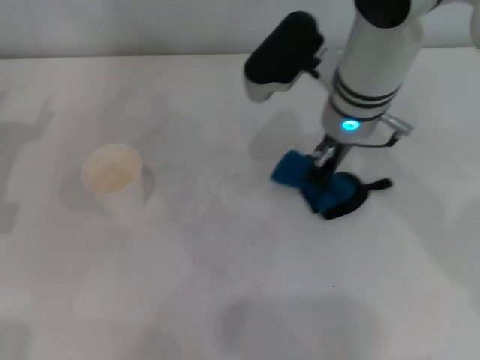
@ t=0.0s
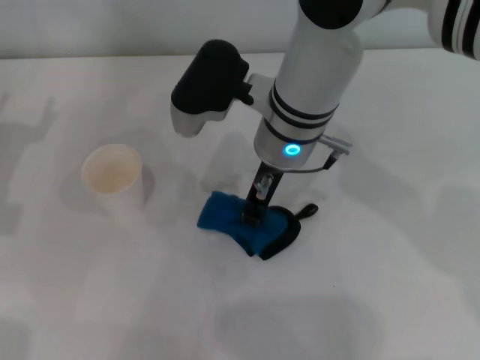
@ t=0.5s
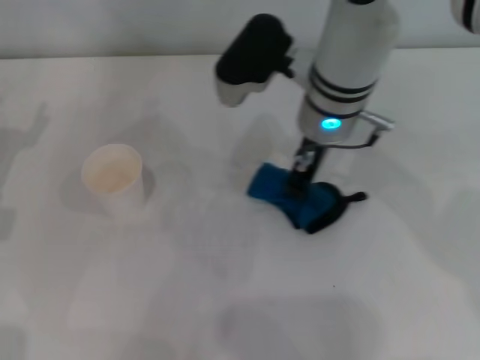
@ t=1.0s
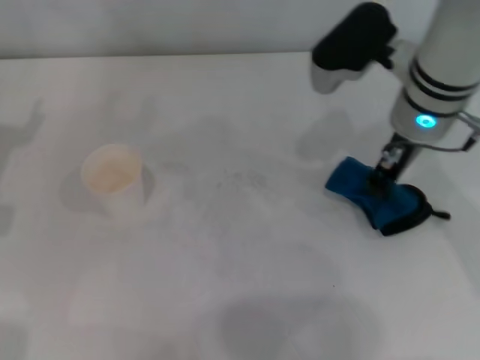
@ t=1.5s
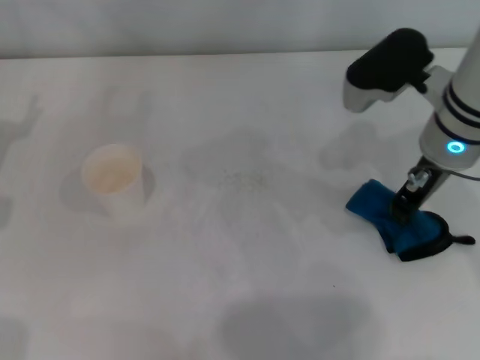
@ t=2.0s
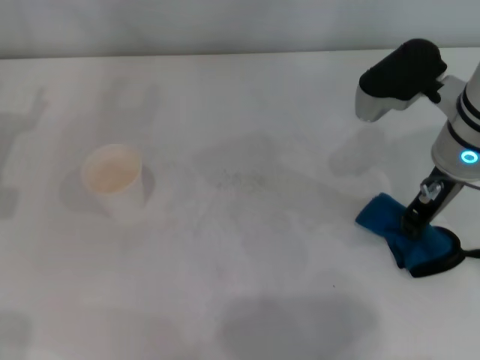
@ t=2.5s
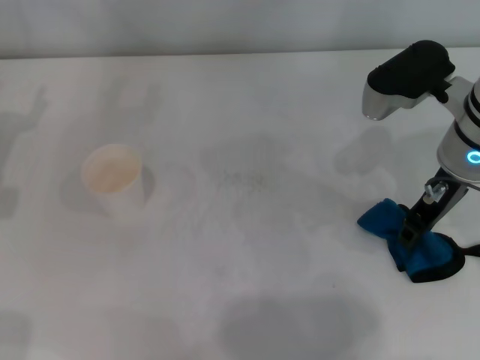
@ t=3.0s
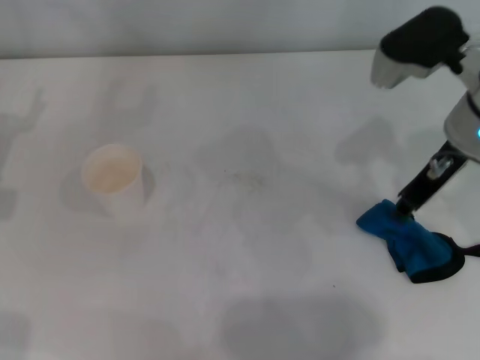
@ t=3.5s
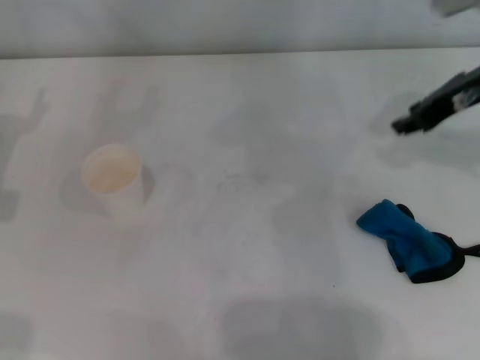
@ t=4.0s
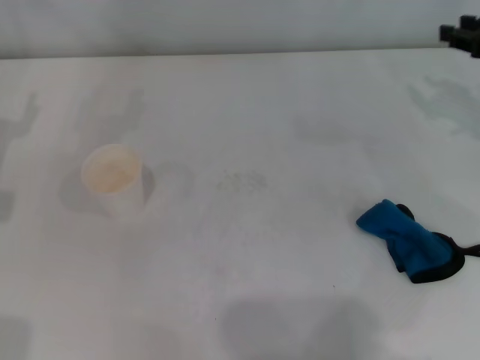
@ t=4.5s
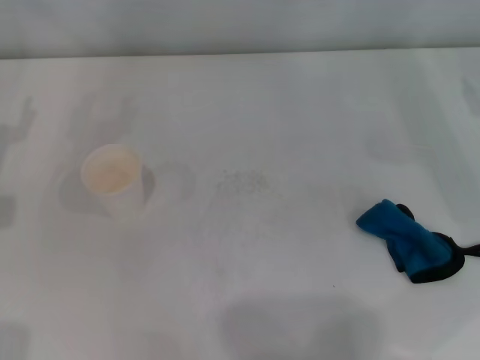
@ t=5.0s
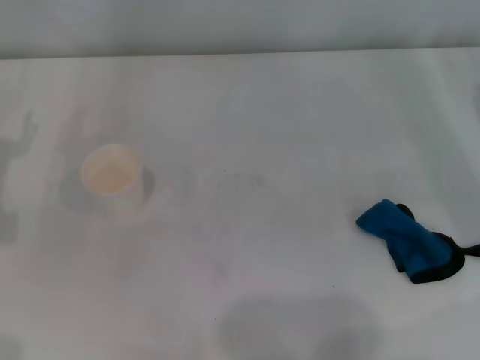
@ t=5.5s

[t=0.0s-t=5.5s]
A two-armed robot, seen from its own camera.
Step, t=0.0s to t=2.5s: Wipe the stains off the table with the right gripper.
t=0.0s to t=2.0s: The right gripper is displaced to the right by approximately 10 cm.
t=2.0s to t=3.5s: The grippers make only small movements.
t=3.5s to t=5.5s: The right gripper goes roughly 20 cm to the right and downward.
